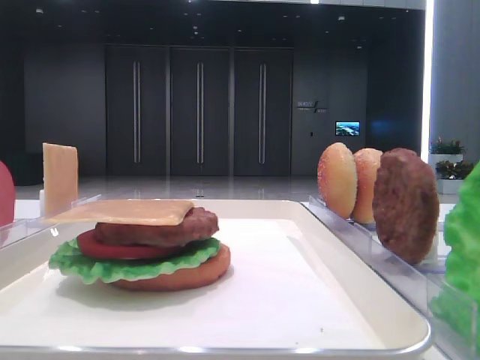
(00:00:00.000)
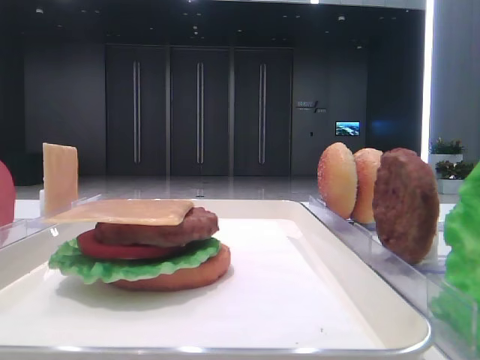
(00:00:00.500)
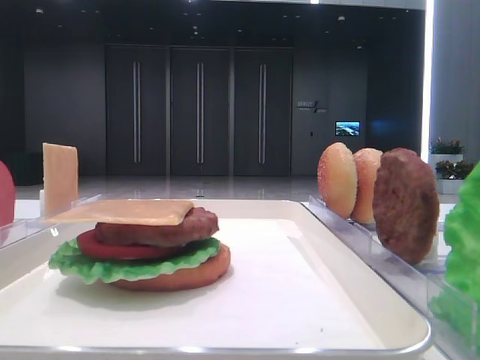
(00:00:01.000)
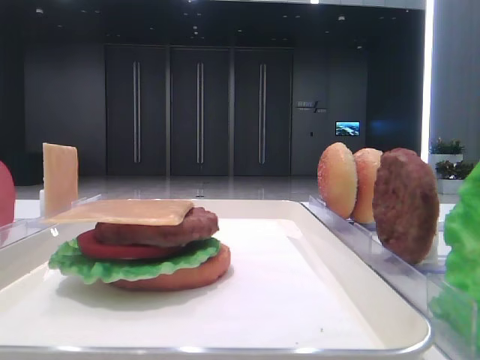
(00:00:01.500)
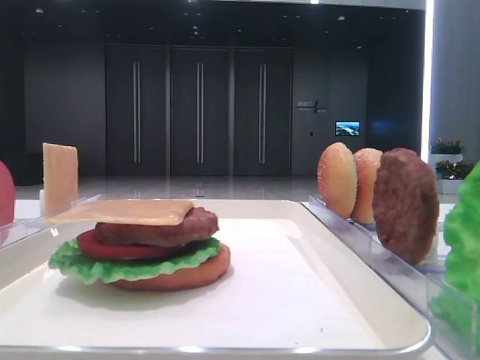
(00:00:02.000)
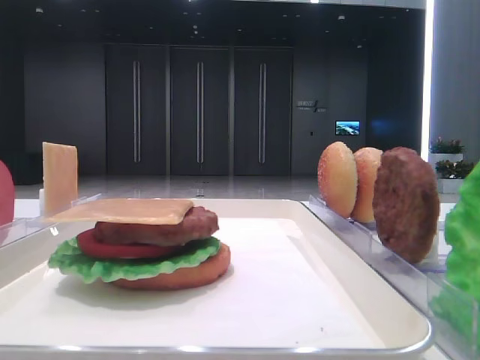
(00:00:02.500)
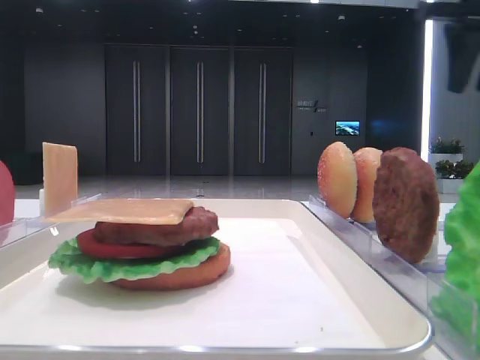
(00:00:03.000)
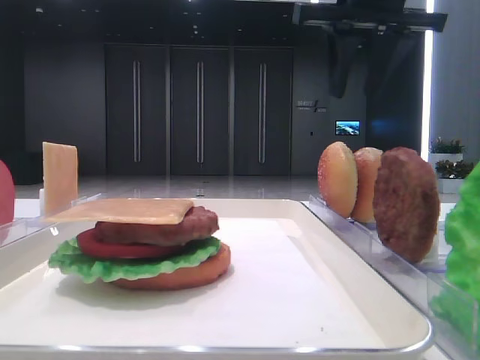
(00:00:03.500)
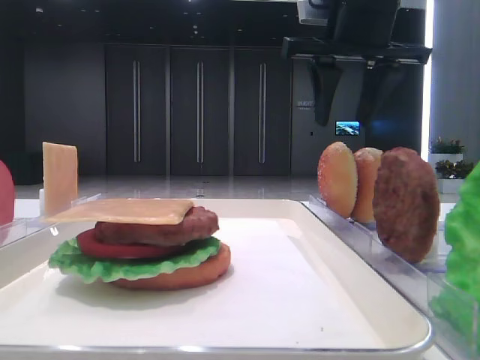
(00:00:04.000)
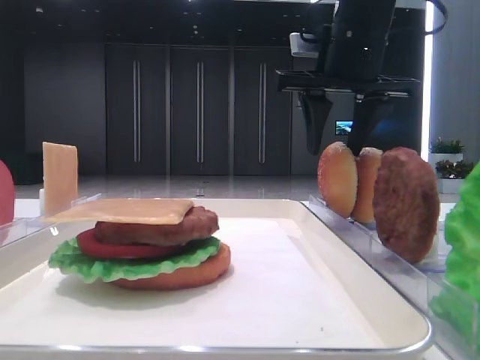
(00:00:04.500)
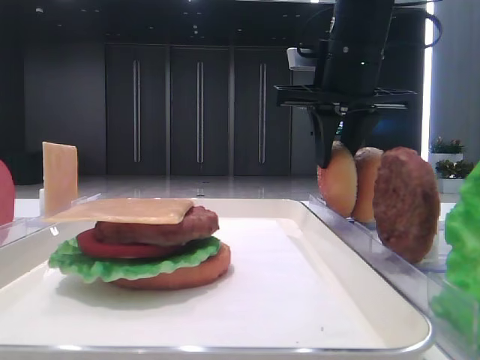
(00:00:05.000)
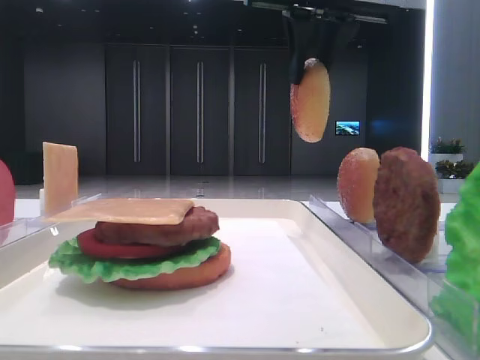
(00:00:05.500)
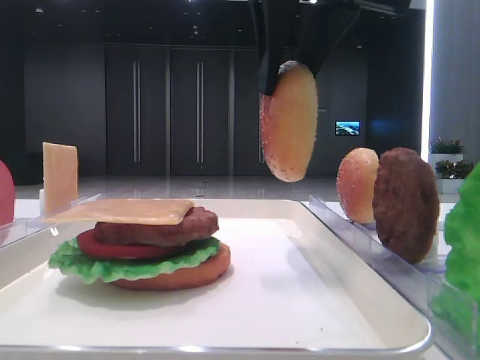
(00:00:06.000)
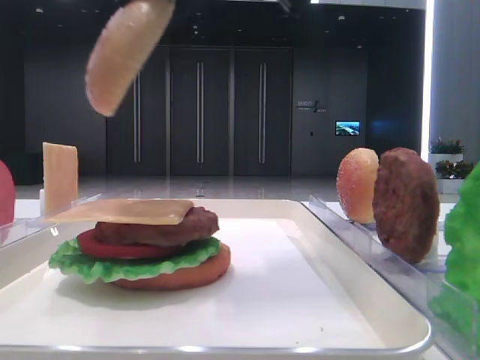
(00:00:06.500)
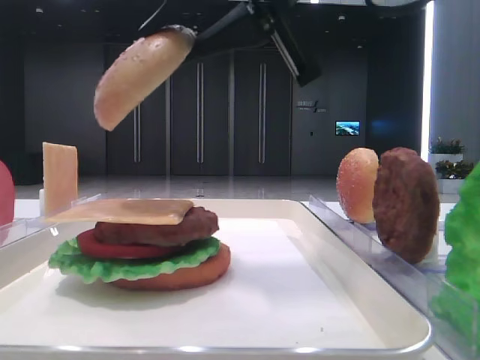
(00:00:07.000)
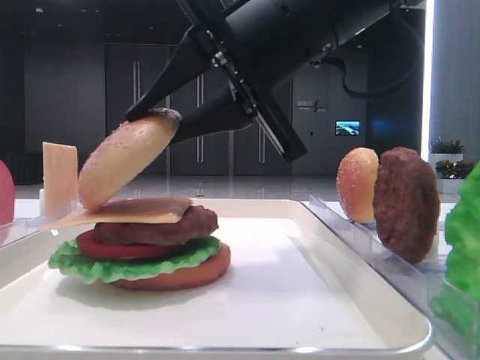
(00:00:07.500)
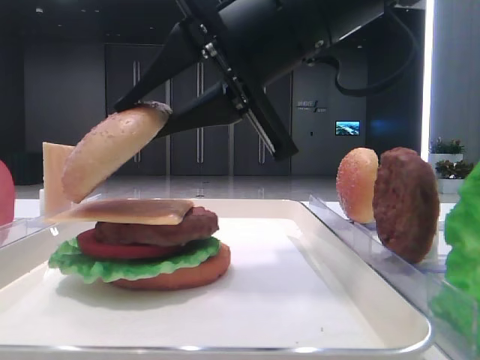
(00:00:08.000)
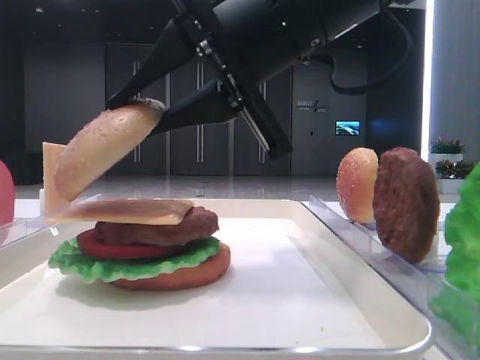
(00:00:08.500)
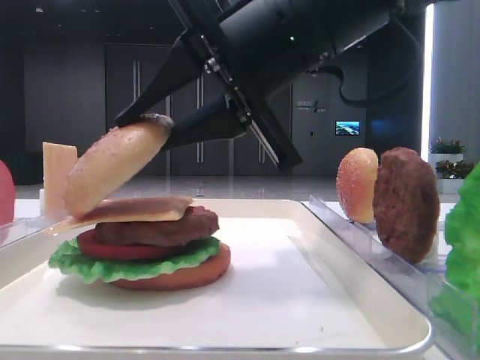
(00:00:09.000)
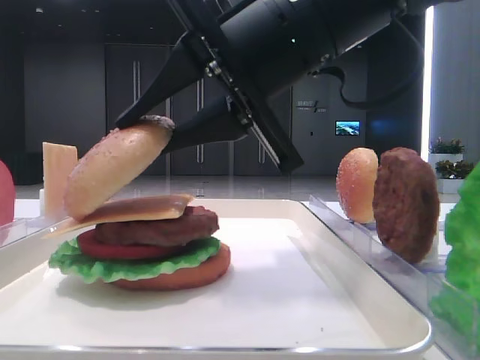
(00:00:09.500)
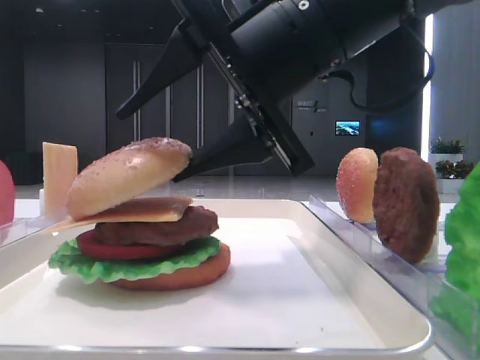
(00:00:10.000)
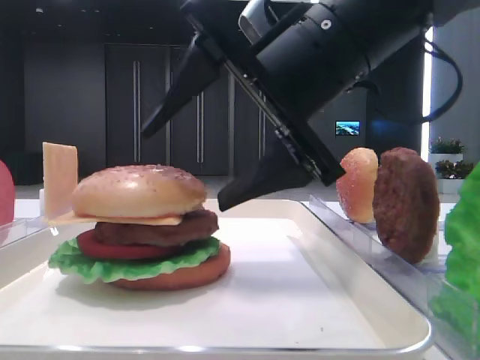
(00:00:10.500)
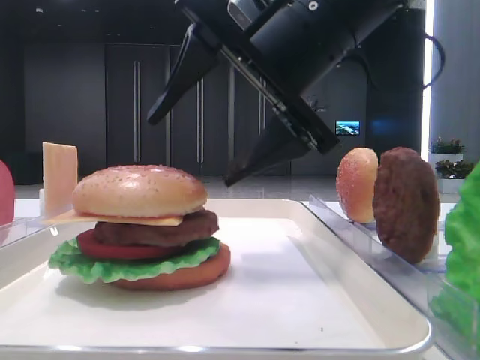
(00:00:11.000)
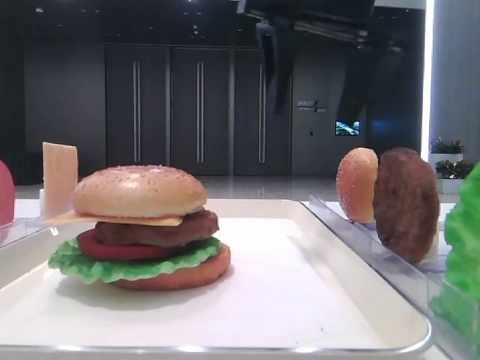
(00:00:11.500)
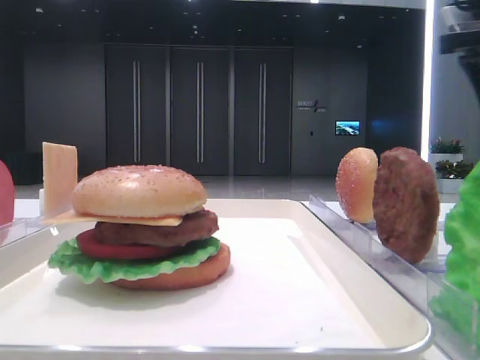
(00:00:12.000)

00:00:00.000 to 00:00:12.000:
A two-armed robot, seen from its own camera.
Step, 00:00:00.000 to 00:00:04.500: Pick up the top bread slice with the right hand.
Step, 00:00:05.000 to 00:00:10.000: Place the top bread slice on the cheese with the right hand.
00:00:02.000 to 00:00:04.000: The right gripper shifts approximately 35 cm forward and to the left.
00:00:04.000 to 00:00:06.000: The right gripper travels backward and to the left by some 15 cm, and closes.
00:00:06.000 to 00:00:08.000: The right gripper moves downward, roughly 10 cm.
00:00:08.000 to 00:00:10.000: The right gripper opens.
00:00:10.000 to 00:00:12.000: The right gripper moves to the right and forward, approximately 25 cm.

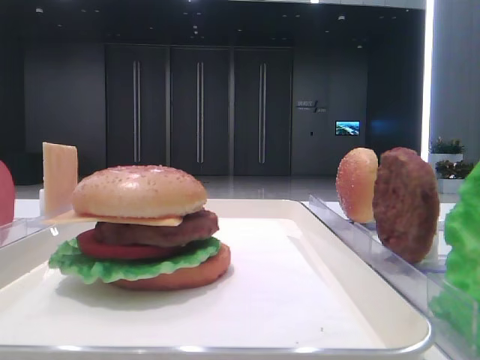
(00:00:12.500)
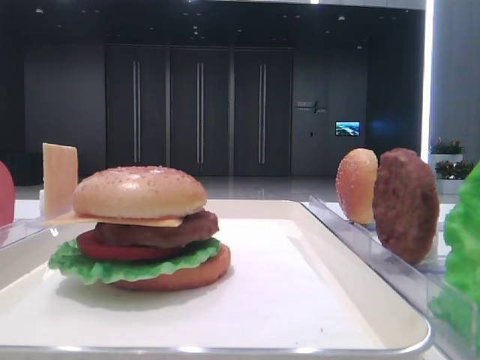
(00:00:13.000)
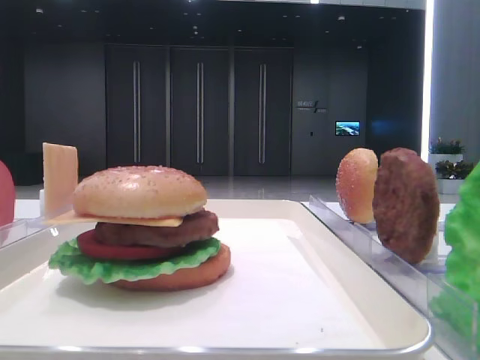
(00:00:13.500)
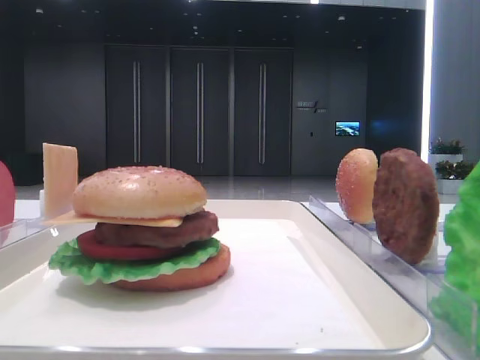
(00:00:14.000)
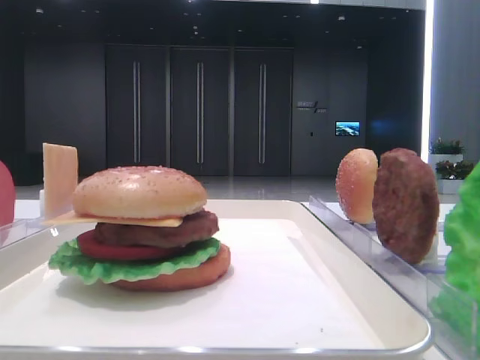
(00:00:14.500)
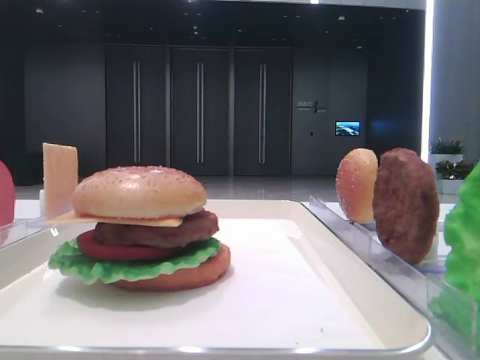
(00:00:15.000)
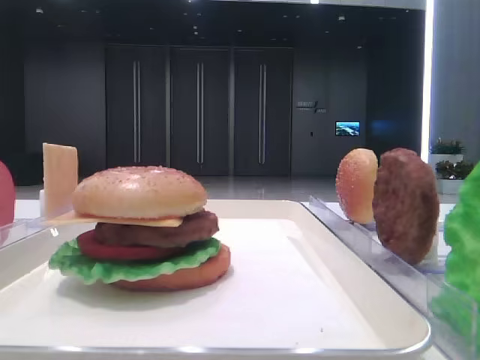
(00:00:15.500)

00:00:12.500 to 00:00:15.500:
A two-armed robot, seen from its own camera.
00:00:14.000 to 00:00:15.500: Both grippers stay put.

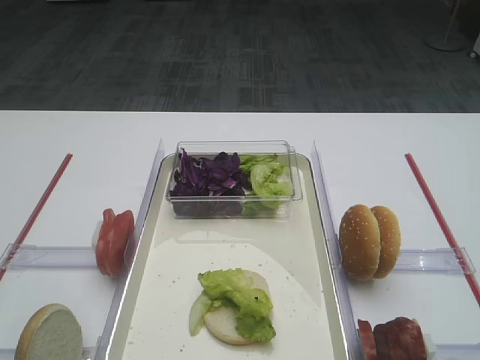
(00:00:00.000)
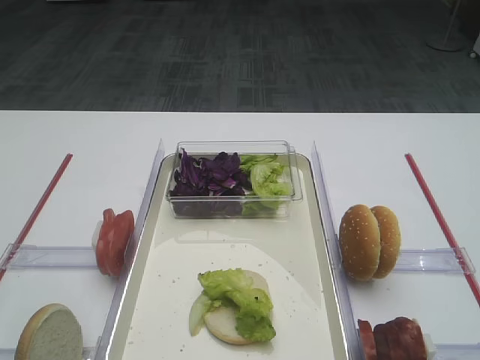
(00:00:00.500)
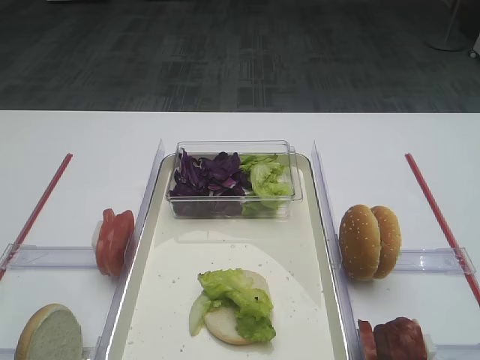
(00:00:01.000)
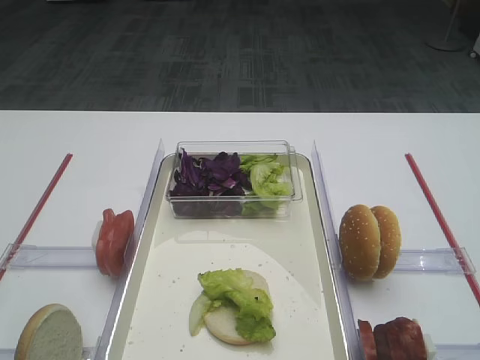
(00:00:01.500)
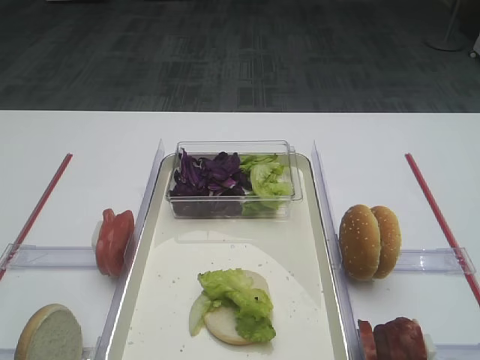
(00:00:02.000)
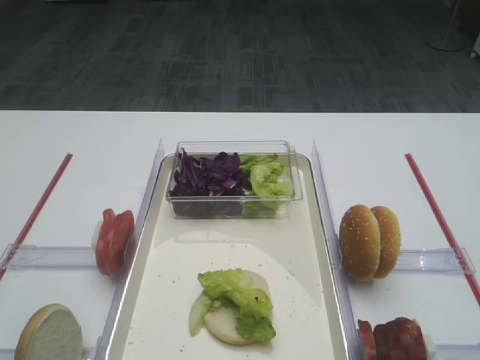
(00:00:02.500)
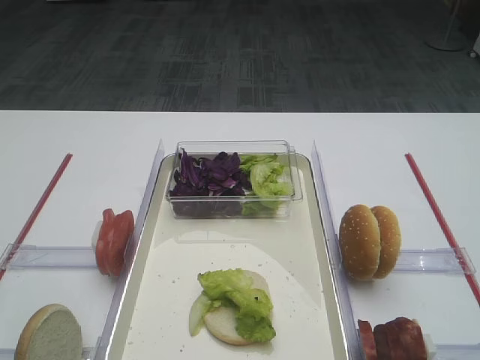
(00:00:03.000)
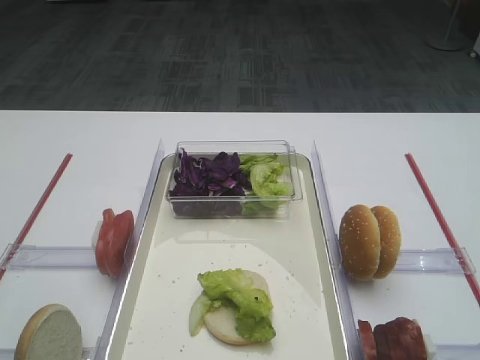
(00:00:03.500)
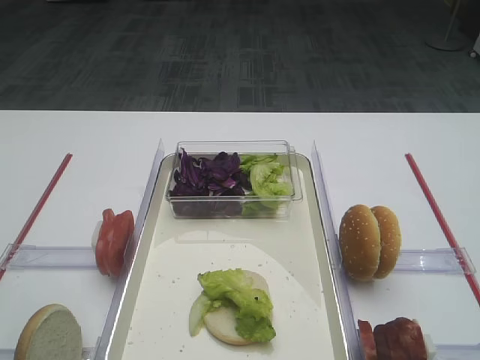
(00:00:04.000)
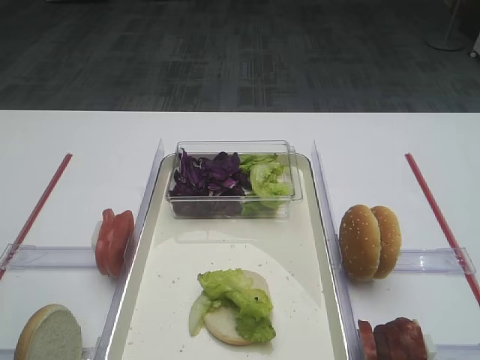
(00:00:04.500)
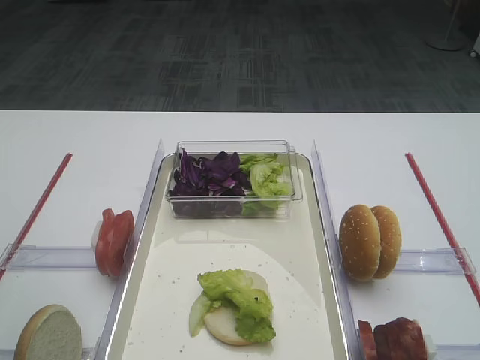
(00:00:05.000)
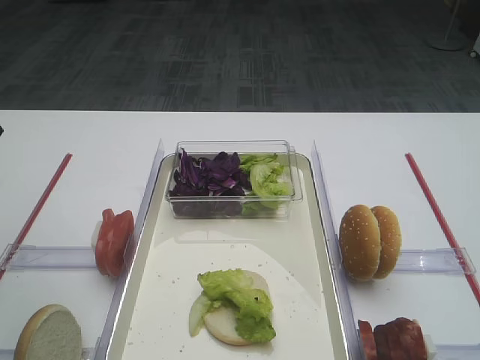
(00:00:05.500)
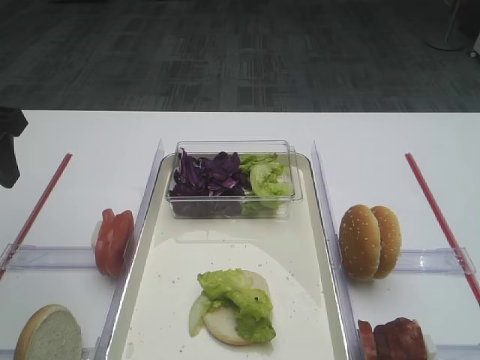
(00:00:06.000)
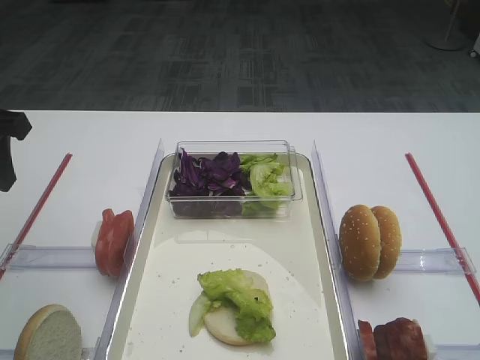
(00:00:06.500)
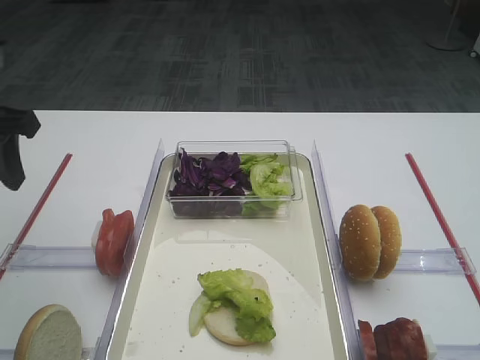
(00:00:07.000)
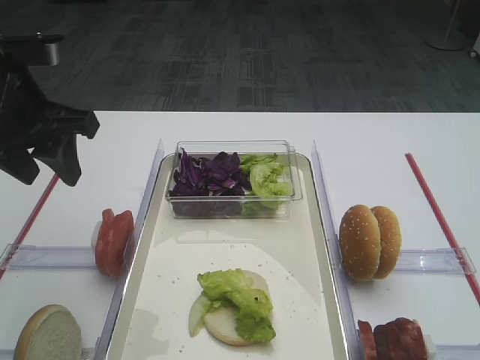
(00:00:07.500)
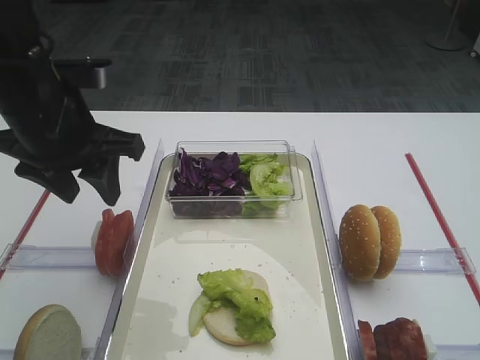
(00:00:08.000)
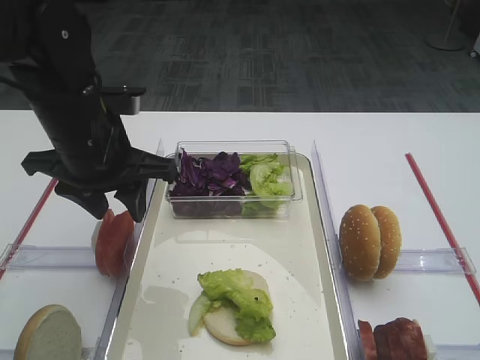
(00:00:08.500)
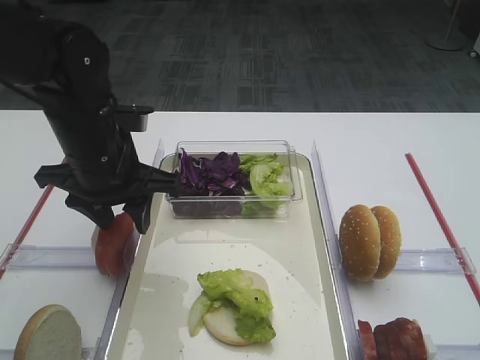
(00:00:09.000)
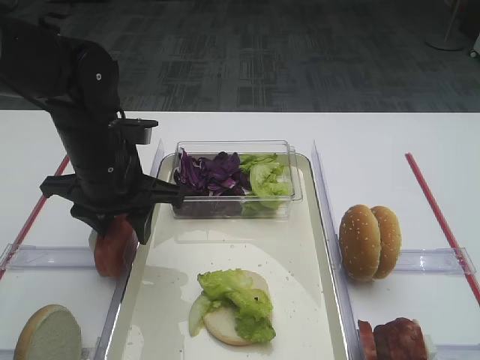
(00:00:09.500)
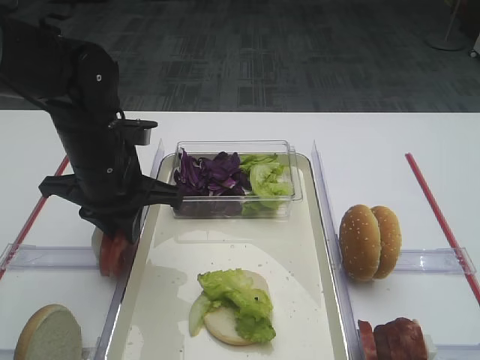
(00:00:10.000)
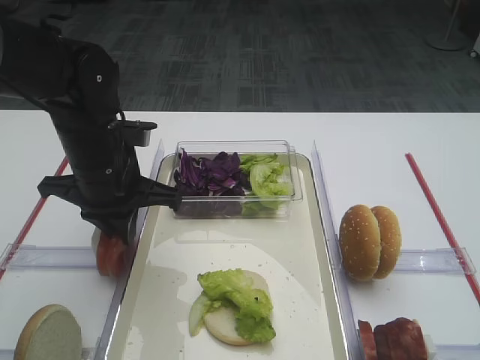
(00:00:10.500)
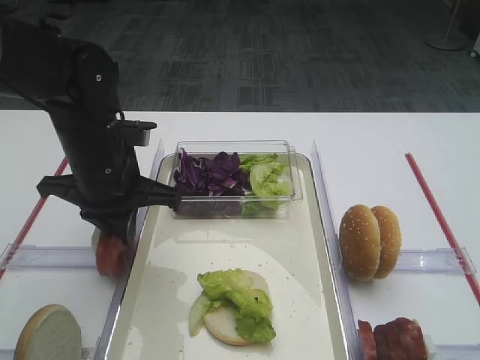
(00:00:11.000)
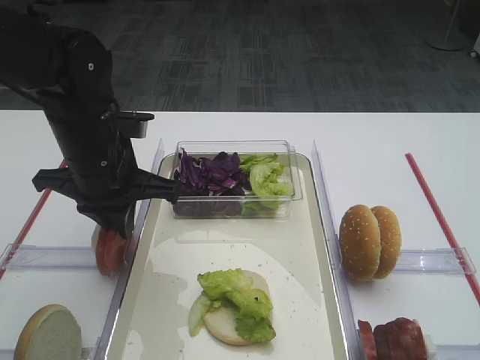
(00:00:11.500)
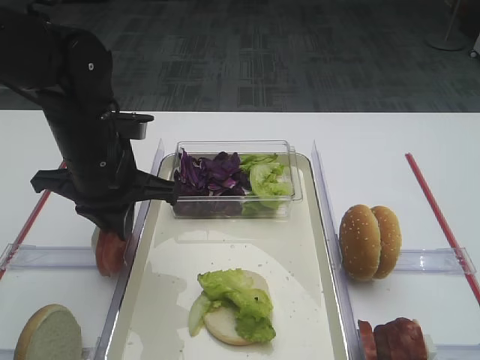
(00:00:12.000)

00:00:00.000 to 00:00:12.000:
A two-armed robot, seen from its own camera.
00:00:04.000 to 00:00:06.000: The left gripper is displaced forward by some 20 cm.
00:00:06.000 to 00:00:08.000: The left gripper is displaced to the right by some 10 cm.
00:00:08.000 to 00:00:10.000: The left gripper travels downward by about 10 cm, and closes.
00:00:10.000 to 00:00:12.000: Both grippers stay about where they are.
